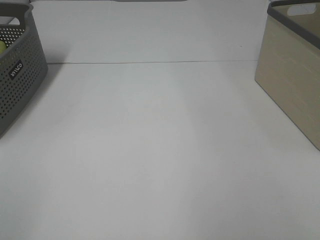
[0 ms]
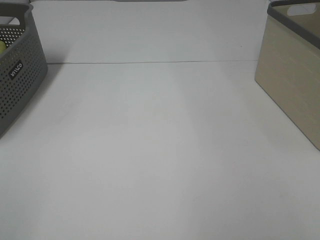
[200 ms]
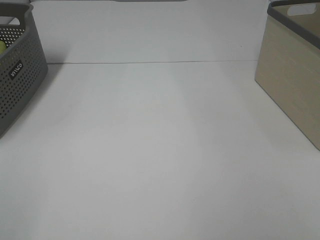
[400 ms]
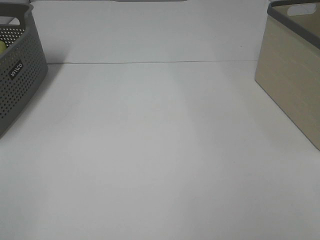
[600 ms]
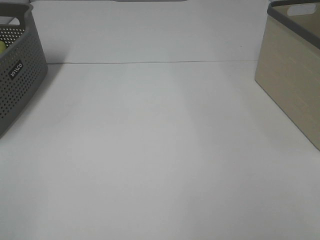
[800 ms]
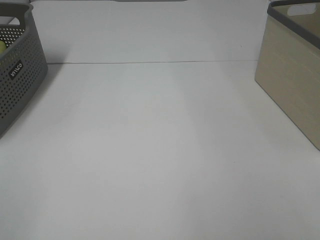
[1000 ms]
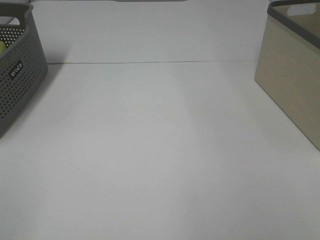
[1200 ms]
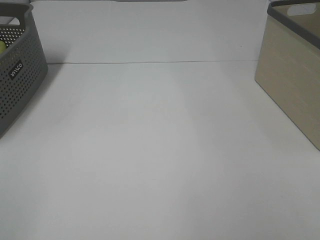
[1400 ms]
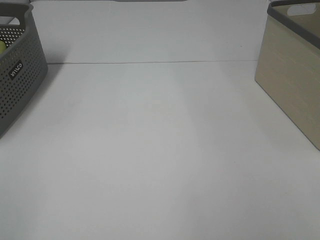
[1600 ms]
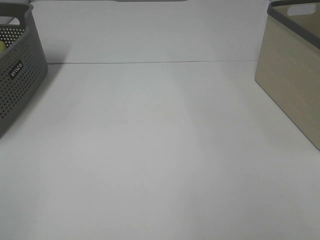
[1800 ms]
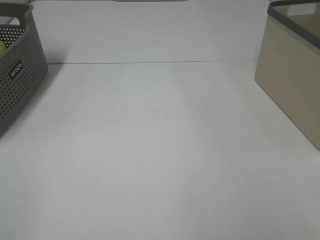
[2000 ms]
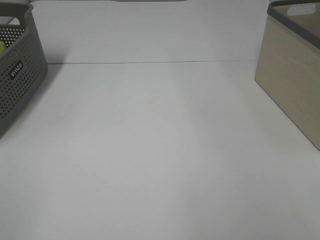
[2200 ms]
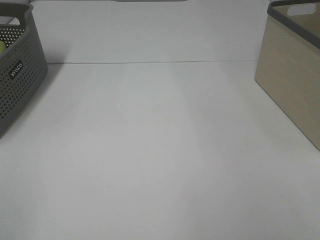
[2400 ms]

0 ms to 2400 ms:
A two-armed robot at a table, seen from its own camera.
1200 ms to 2400 ms: The two grippers keep their place.

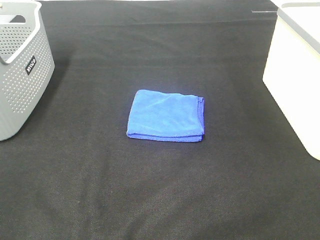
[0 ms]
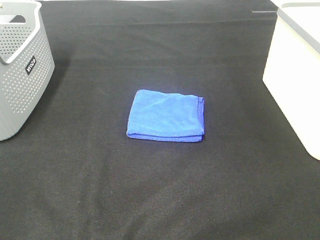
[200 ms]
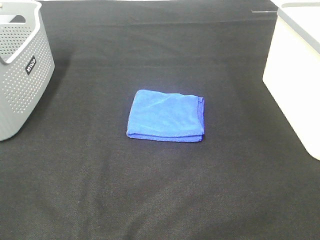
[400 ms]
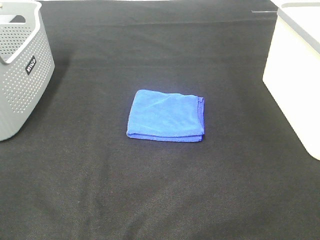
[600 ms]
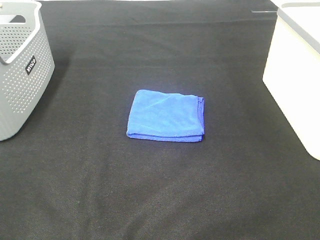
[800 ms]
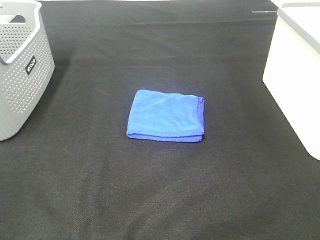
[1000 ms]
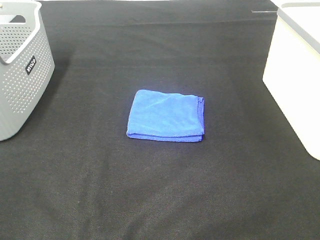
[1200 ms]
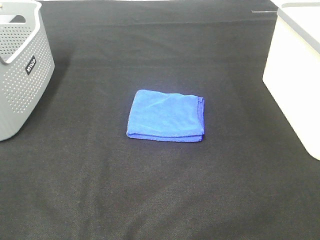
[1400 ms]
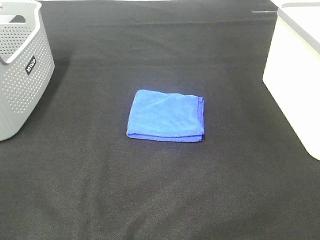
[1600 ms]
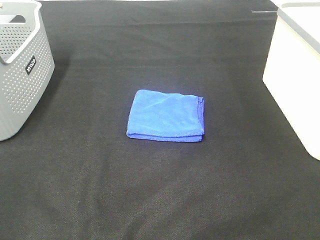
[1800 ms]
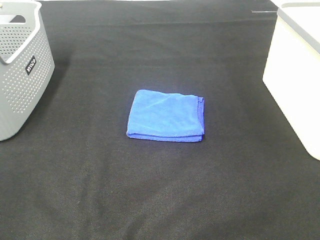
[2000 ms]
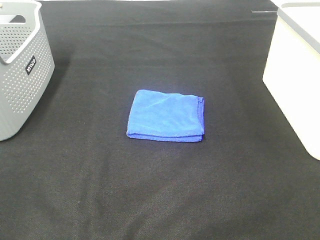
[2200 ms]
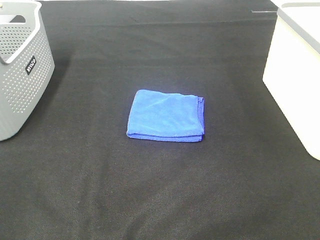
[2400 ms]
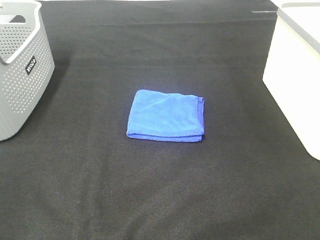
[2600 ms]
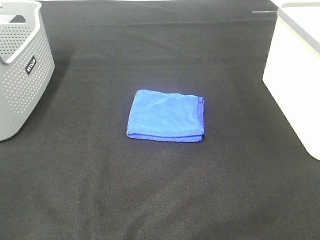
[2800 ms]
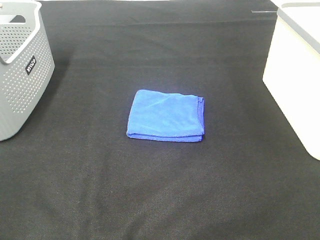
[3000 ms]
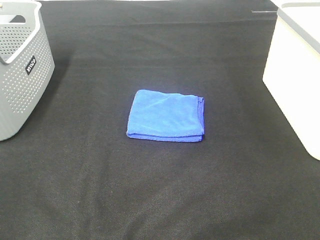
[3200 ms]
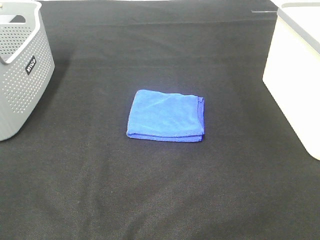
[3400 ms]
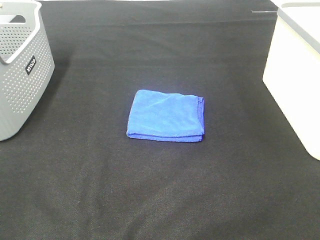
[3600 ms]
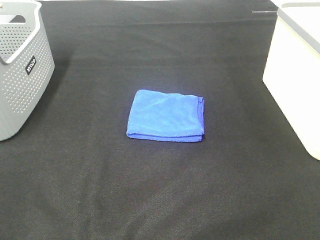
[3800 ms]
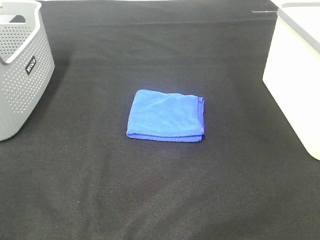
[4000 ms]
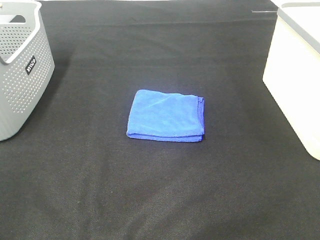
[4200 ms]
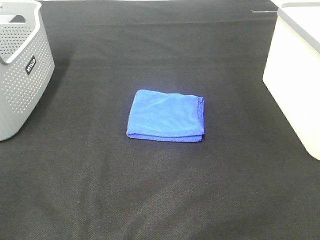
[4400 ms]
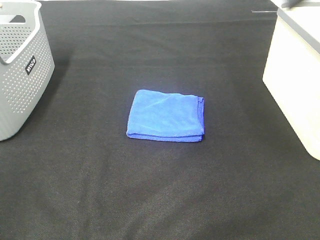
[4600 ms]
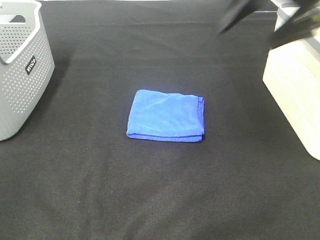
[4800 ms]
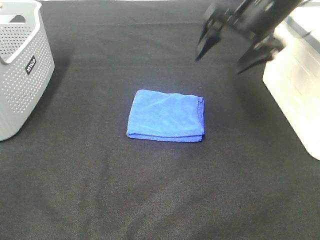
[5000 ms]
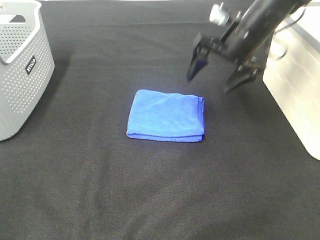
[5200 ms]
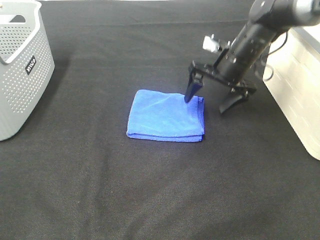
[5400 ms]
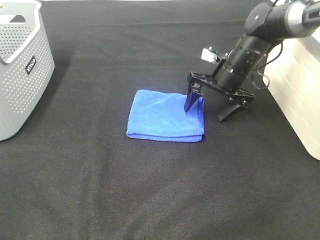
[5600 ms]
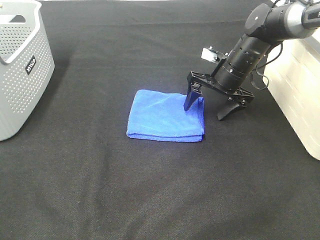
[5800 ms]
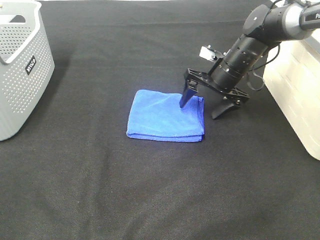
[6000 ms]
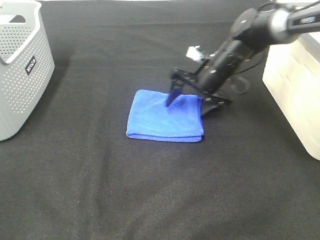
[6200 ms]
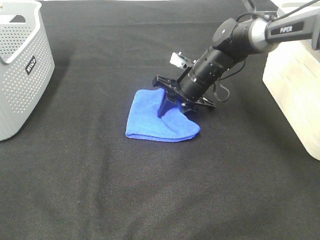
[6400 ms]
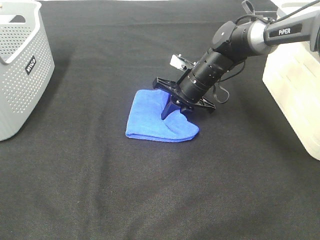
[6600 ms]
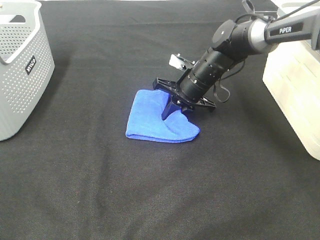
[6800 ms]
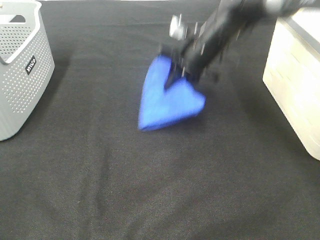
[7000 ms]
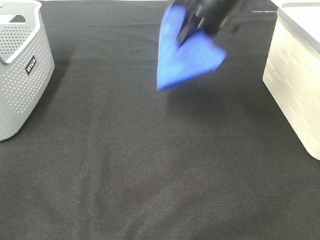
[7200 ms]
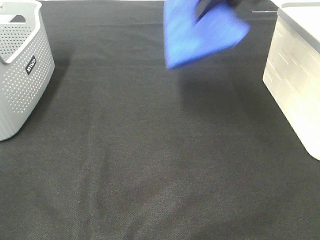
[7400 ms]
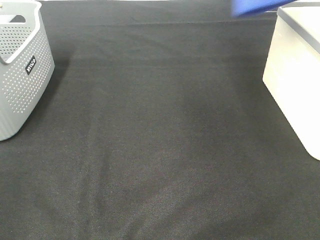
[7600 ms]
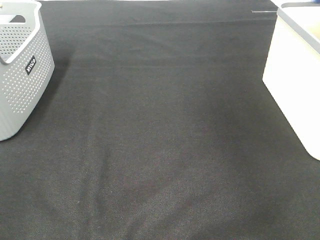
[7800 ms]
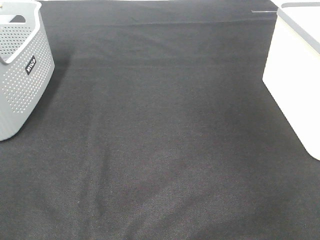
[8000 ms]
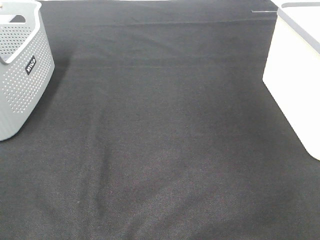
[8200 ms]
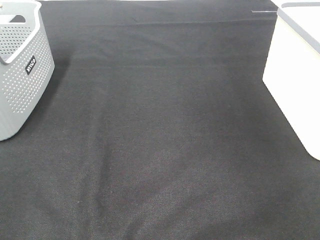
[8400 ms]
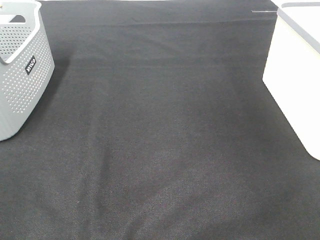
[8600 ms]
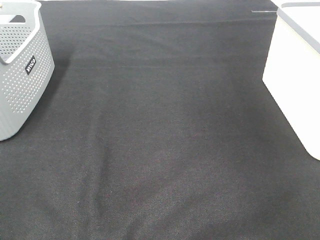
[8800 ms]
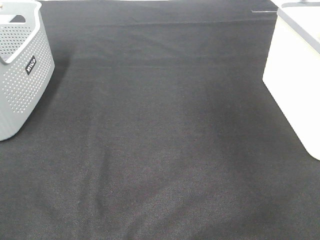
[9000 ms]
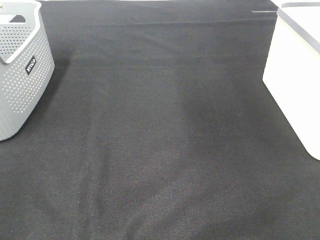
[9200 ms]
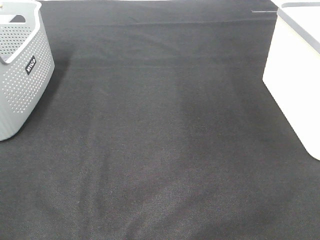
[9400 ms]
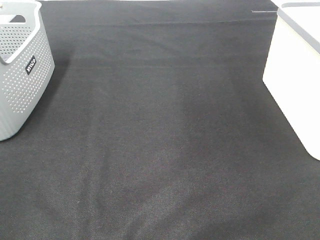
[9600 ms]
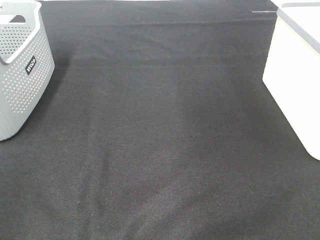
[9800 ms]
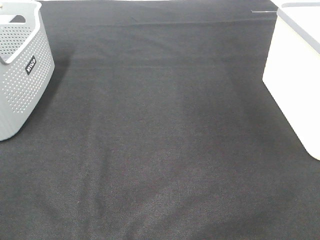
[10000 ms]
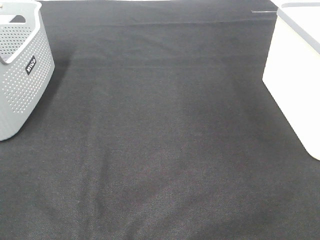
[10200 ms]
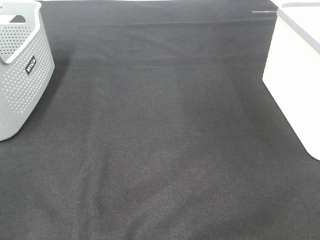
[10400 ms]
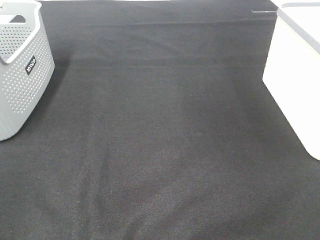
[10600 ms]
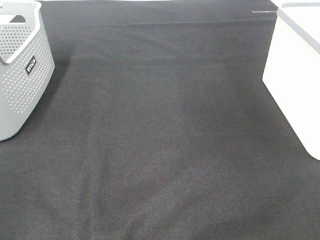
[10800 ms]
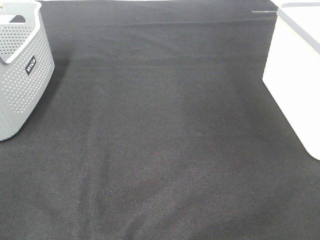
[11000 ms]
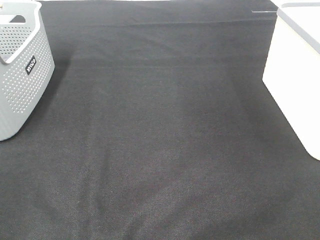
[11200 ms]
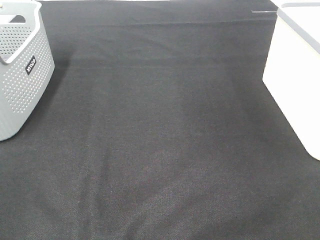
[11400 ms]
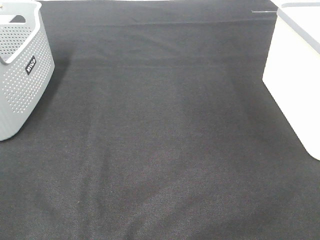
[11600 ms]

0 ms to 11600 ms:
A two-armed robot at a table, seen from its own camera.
Step, 0 ms to 6600 ms: Right hand: grab the folded blue towel.
Step, 6800 ms to 8600 ms: Right hand: place the blue towel in right basket.
1400 ms to 2800 ms: Both grippers stay put.
4400 ms to 5800 ms: The right gripper travels downward, forward and to the left by about 35 cm.
5800 ms to 7200 ms: The right gripper heads upward, covering roughly 20 cm, and closes.
7200 ms to 8800 ms: The right gripper travels to the right by roughly 25 cm, and opens.

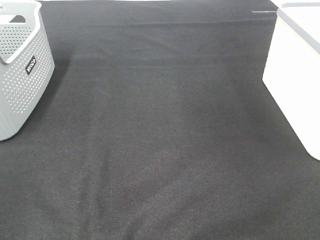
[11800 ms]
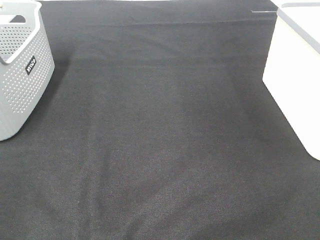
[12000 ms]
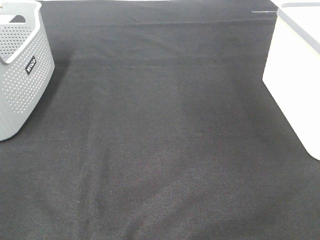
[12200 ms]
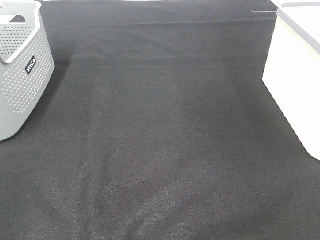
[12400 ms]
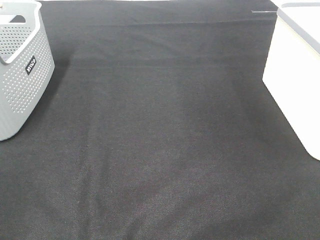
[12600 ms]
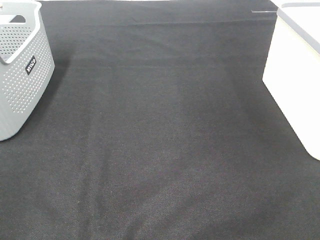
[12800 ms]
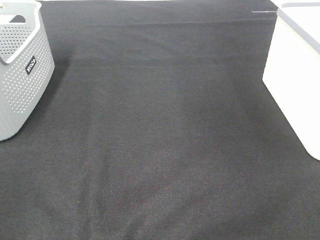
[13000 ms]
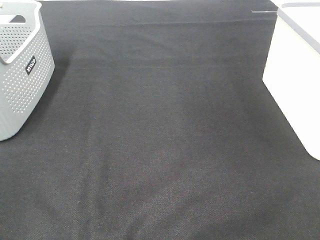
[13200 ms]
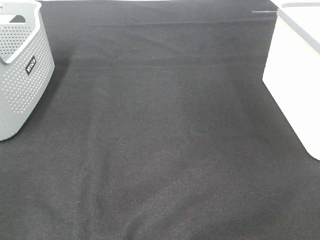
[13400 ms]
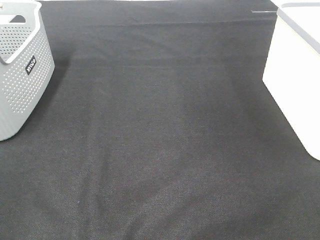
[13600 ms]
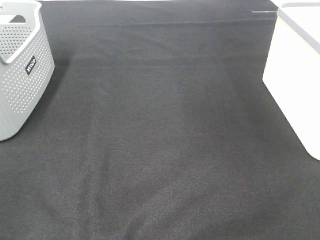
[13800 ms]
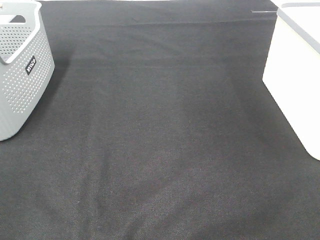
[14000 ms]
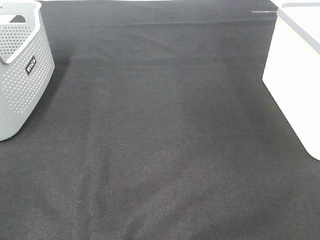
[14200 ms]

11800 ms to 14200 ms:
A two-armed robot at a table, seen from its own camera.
11800 ms to 14200 ms: The two grippers keep their place.

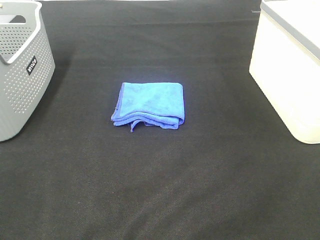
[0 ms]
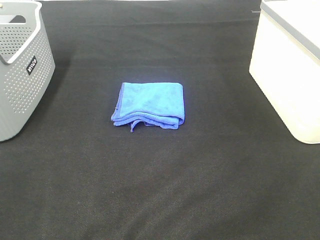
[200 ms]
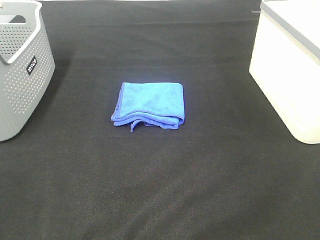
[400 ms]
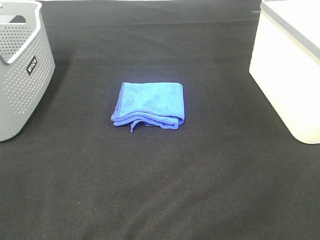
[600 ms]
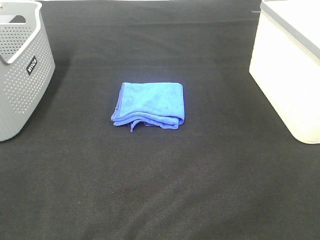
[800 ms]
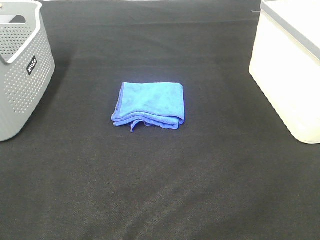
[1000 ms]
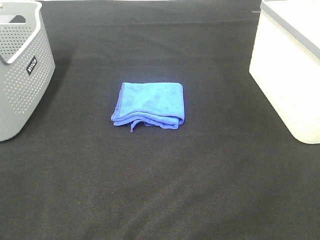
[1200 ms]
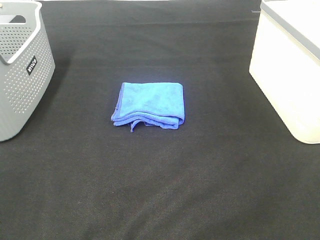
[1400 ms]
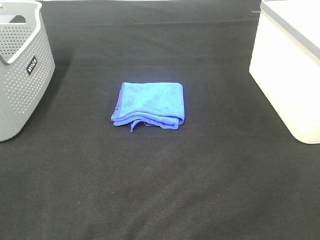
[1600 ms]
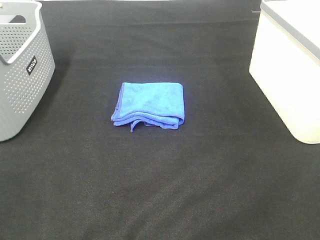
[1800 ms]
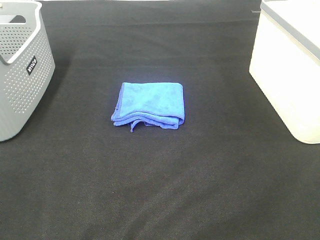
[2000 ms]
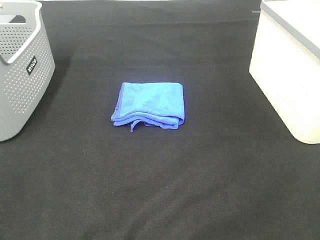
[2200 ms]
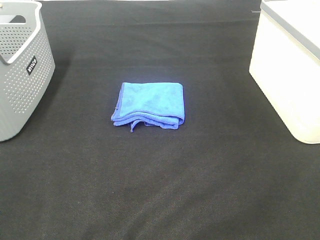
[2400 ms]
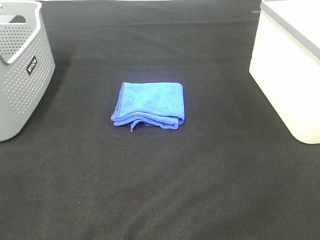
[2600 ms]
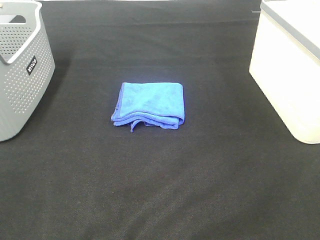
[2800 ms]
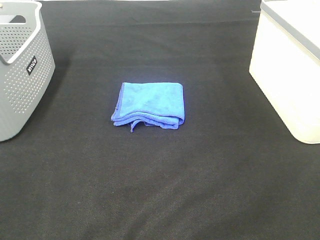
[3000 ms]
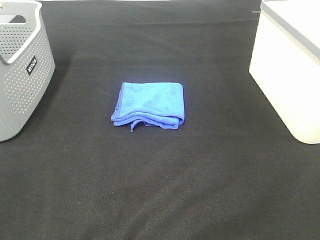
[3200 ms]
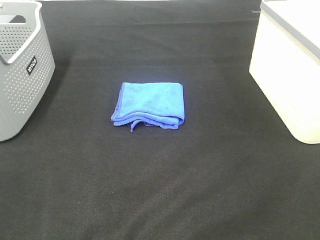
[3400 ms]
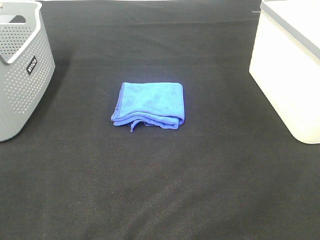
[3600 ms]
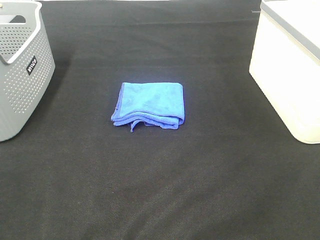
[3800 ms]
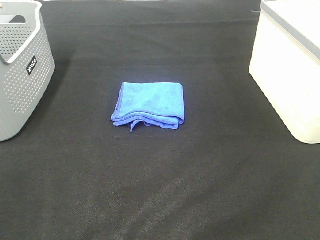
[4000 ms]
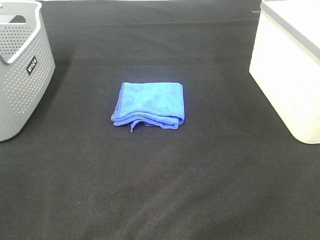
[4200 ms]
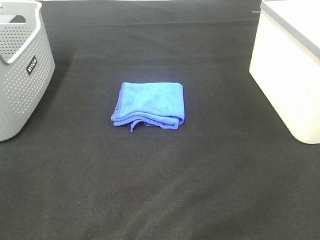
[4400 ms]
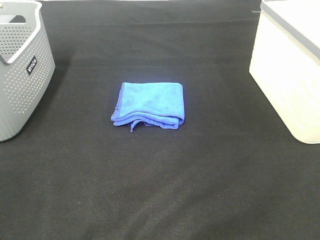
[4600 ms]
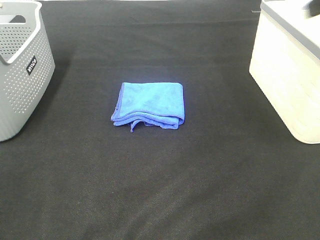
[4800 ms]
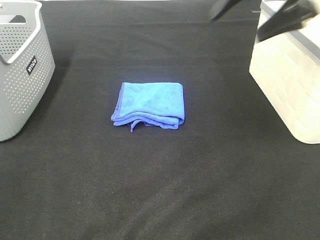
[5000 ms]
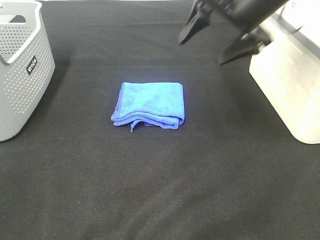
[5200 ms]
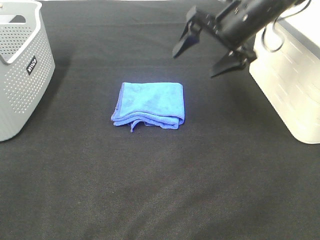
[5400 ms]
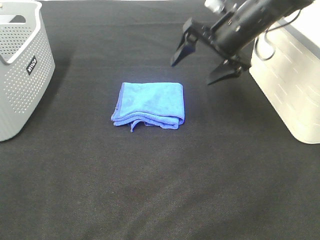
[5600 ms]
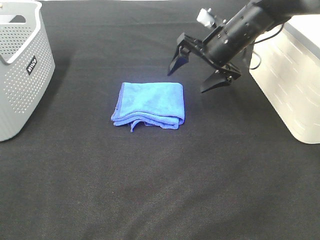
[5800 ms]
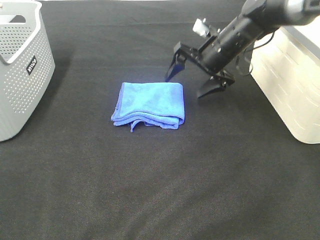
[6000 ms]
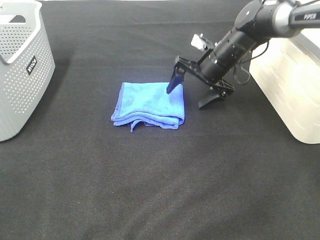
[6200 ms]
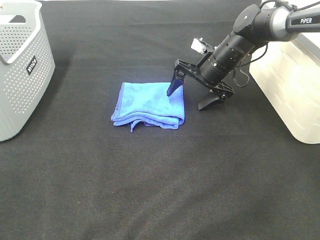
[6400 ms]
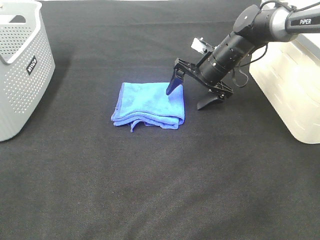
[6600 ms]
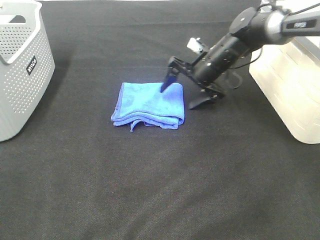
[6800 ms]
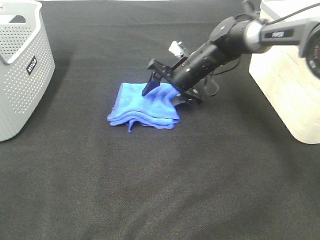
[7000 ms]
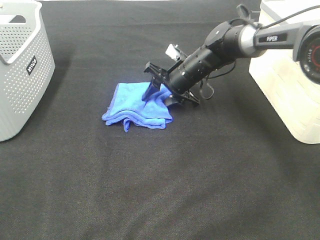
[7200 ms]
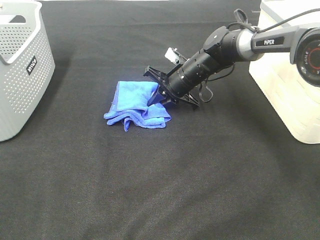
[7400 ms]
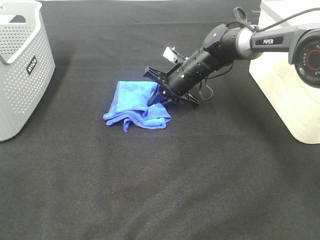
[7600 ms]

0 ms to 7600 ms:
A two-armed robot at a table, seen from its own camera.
0 ms to 3000 ms: The two grippers keep their place.
4600 ms to 6000 ms: The right gripper heads downward, forward and to the left, covering approximately 35 cm.
6000 ms to 7600 ms: The right gripper moves to the left and downward, about 10 cm, and closes.
